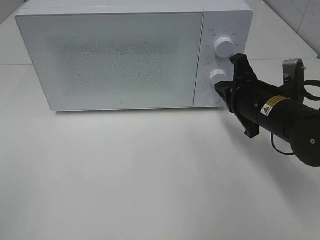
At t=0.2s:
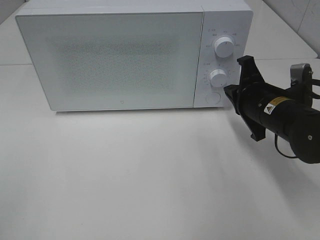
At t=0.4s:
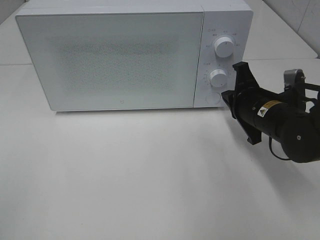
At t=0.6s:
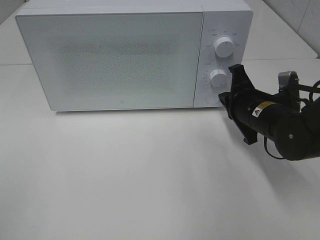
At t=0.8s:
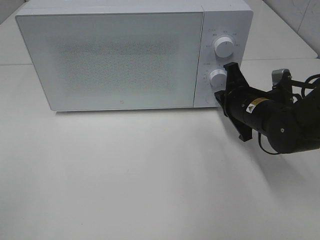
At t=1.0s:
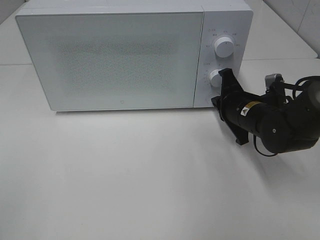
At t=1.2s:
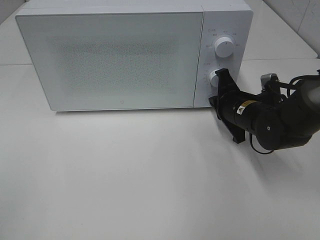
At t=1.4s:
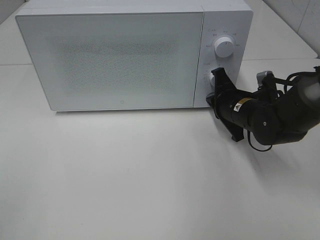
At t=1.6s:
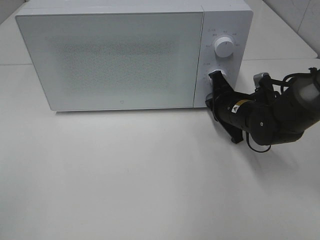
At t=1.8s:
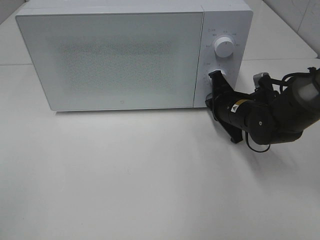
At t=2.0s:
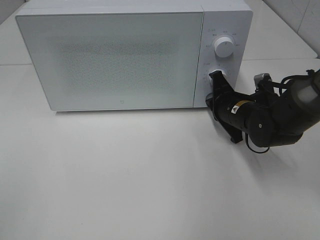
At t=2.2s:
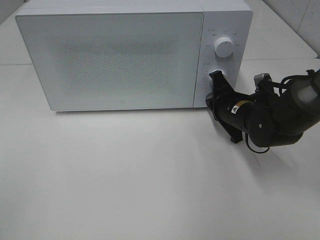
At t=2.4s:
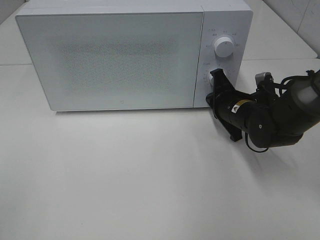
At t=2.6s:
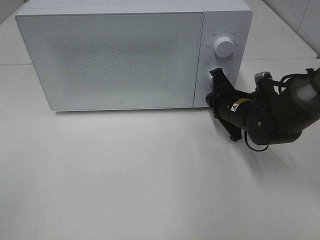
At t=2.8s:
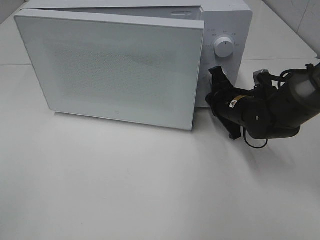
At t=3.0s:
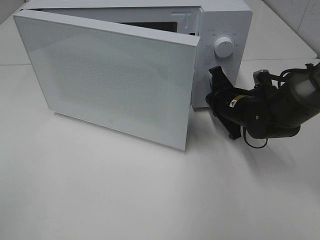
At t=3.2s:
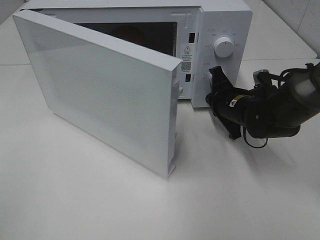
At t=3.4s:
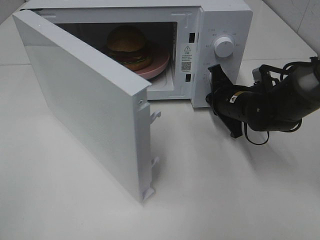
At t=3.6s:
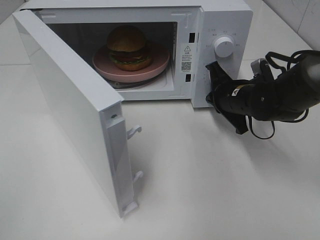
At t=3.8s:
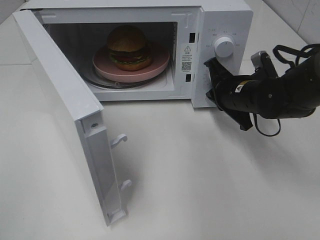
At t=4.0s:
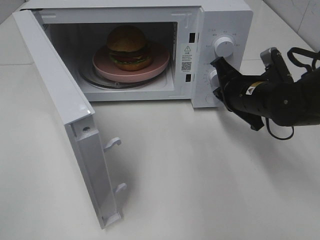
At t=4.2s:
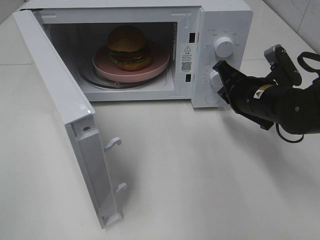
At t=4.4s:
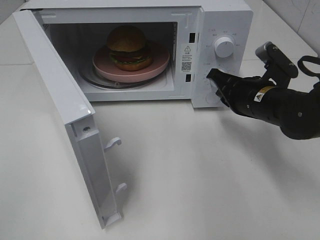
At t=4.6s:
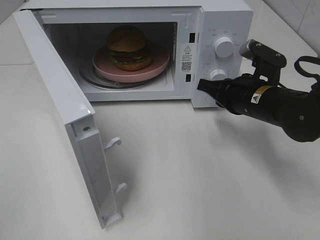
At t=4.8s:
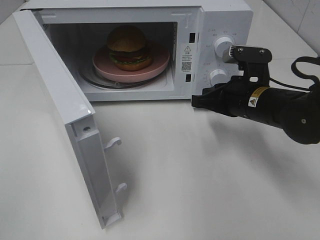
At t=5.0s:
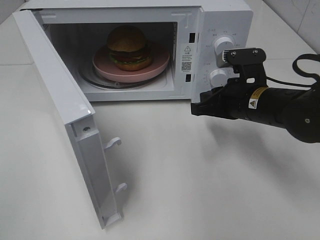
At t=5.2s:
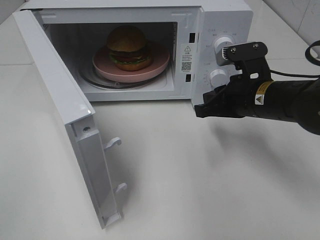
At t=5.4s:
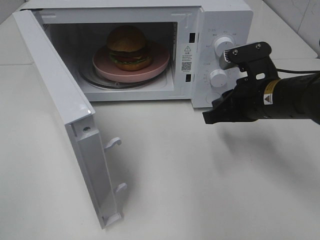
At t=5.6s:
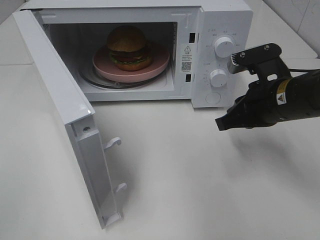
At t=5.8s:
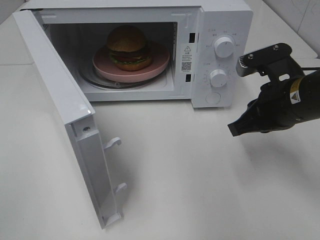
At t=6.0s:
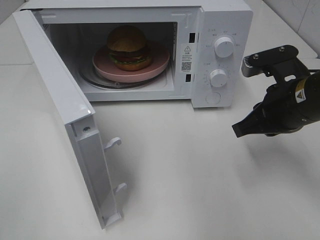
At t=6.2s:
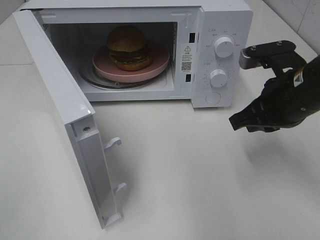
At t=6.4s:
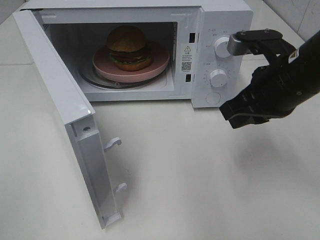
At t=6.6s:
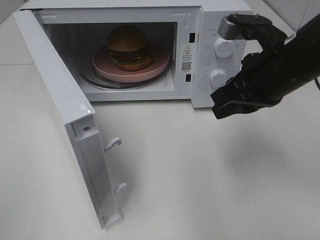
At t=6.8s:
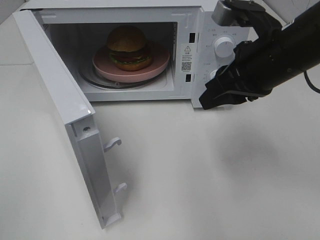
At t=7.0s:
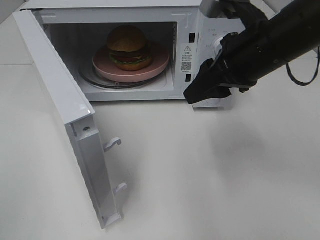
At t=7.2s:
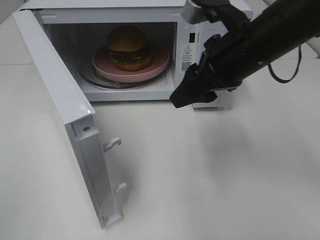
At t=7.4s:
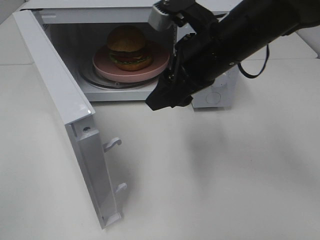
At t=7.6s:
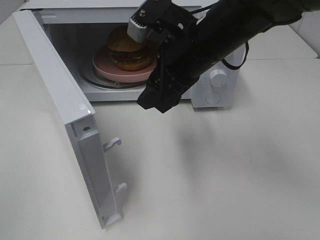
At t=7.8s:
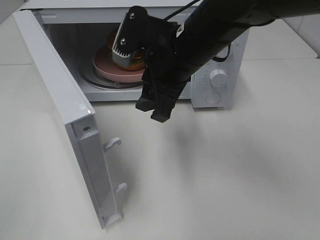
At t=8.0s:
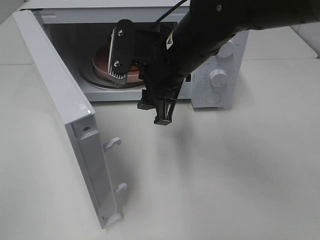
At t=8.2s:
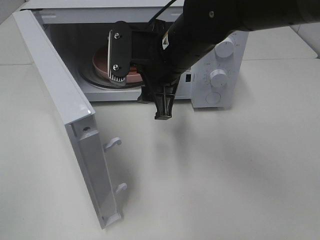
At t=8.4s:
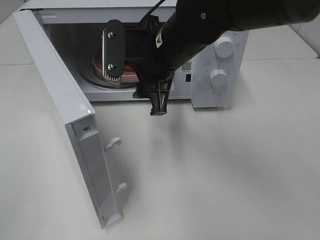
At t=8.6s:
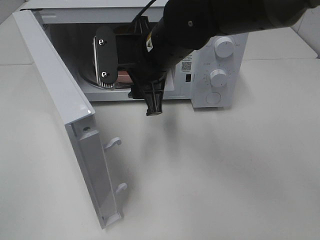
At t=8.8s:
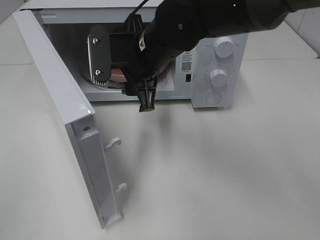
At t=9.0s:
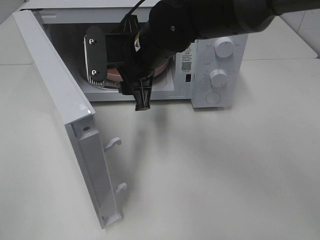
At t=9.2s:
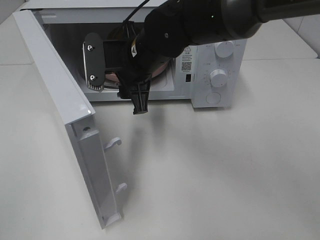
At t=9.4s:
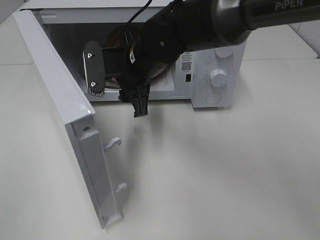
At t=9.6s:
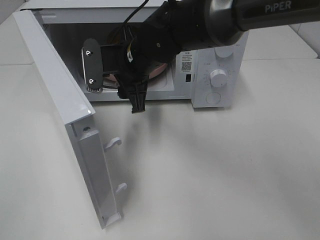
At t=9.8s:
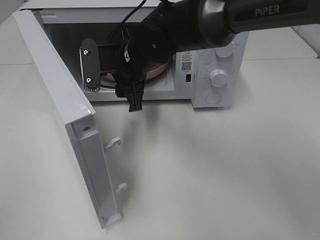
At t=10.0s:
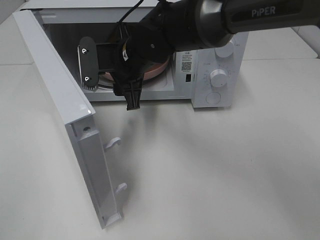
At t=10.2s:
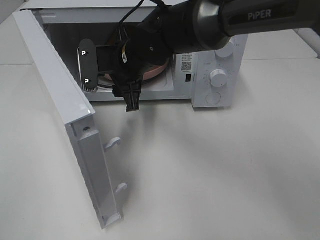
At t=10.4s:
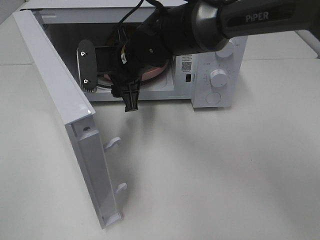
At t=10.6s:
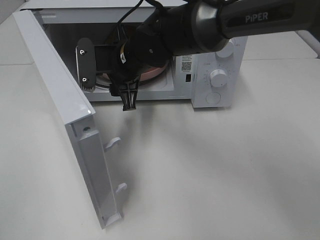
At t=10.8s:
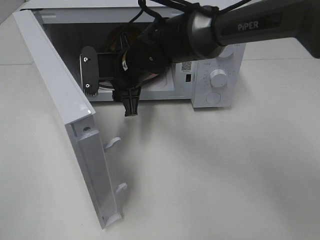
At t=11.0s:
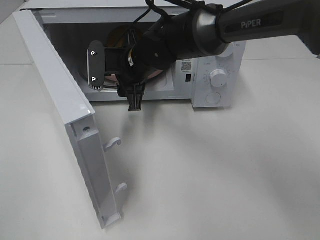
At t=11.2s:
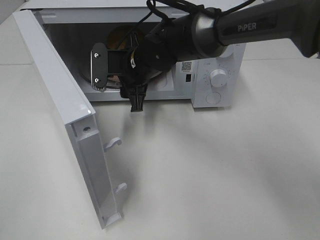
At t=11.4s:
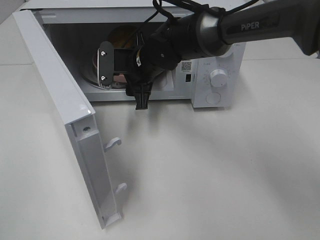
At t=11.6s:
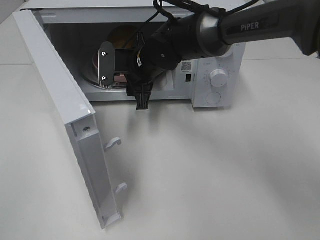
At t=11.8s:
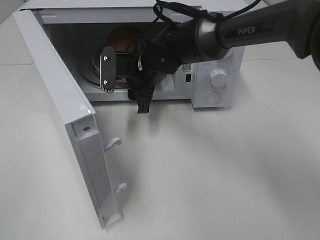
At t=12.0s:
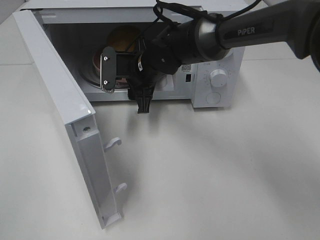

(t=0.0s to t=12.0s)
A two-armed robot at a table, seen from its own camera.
Task of the whole recording: Heat the burger.
Step, t=0.0s - t=3.8s: Right hand: press the switch.
t=0.0s - t=1.6s: The right gripper travels forward and downward by some 10 cm.
t=1.6s - t=3.0s: Neither gripper changes place.
t=3.0s - t=4.4s: The right gripper moves upward, about 5 cm.
t=4.4s - t=6.0s: The right gripper is displaced backward and upward by approximately 10 cm.
t=6.0s - t=7.6s: The right gripper goes approximately 15 cm to the left and upward, and opens its fingers.
t=7.6s - t=9.0s: The right gripper goes roughly 10 cm to the left.
t=9.0s - t=10.4s: The grippers move only a little.
t=10.4s - t=12.0s: The right gripper ends up some 5 cm from where it was.

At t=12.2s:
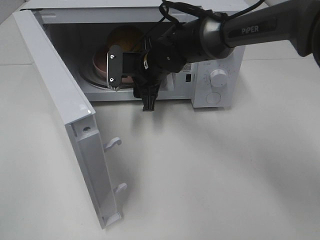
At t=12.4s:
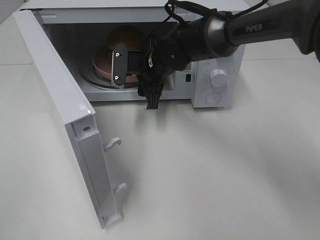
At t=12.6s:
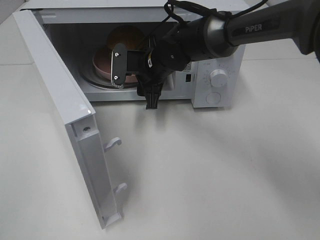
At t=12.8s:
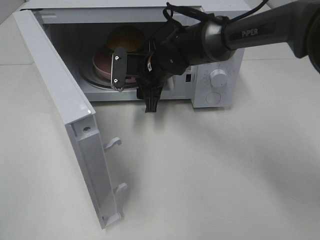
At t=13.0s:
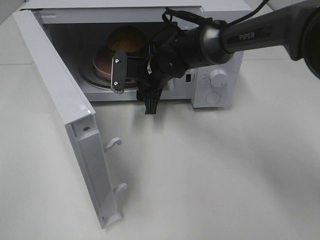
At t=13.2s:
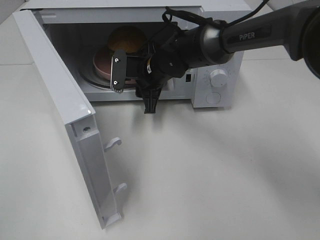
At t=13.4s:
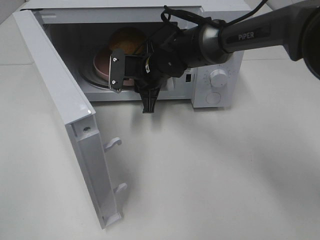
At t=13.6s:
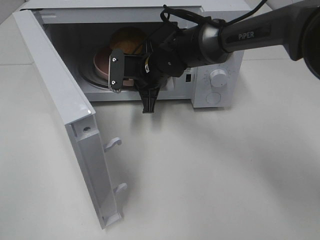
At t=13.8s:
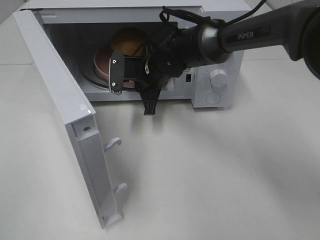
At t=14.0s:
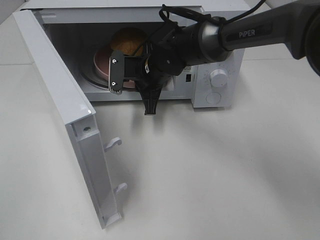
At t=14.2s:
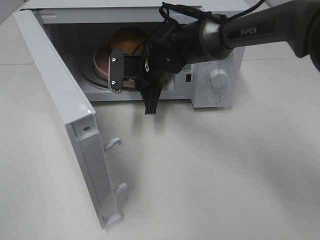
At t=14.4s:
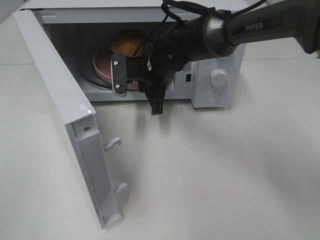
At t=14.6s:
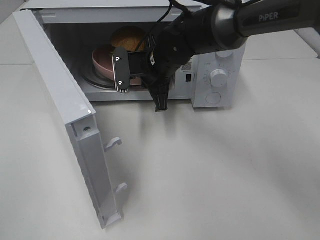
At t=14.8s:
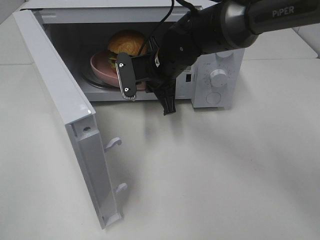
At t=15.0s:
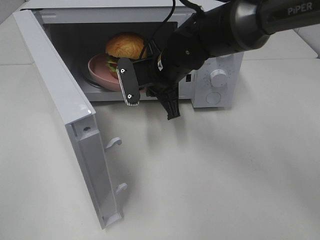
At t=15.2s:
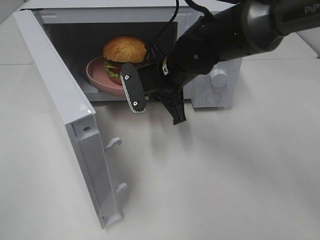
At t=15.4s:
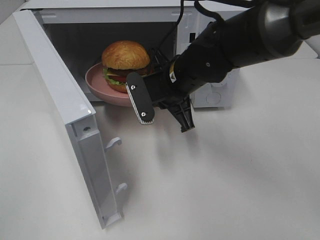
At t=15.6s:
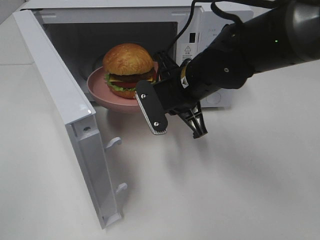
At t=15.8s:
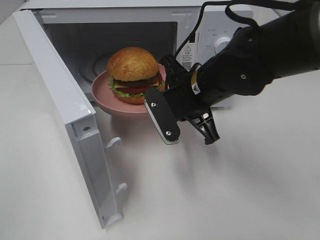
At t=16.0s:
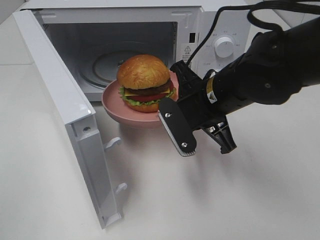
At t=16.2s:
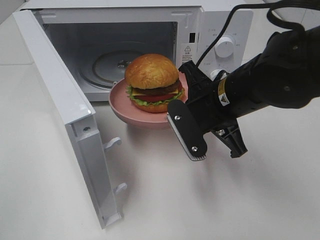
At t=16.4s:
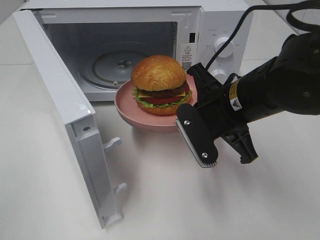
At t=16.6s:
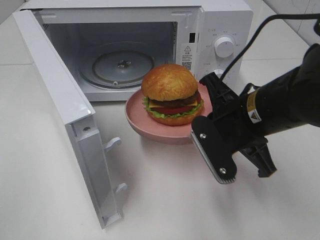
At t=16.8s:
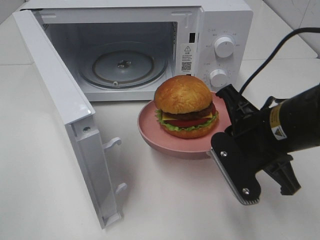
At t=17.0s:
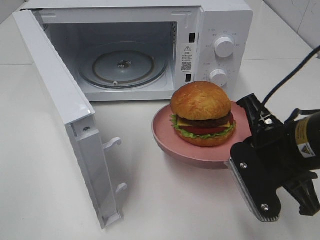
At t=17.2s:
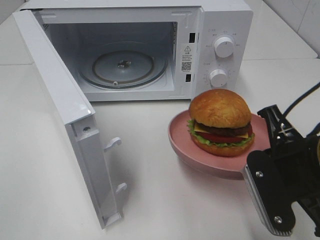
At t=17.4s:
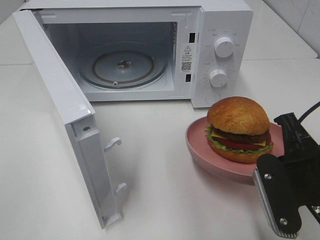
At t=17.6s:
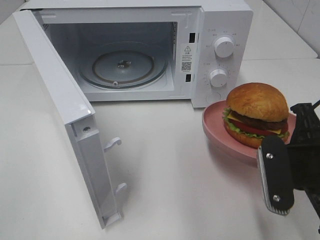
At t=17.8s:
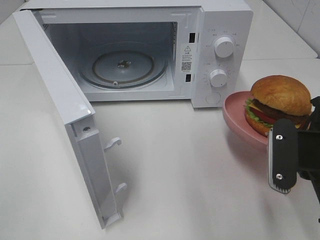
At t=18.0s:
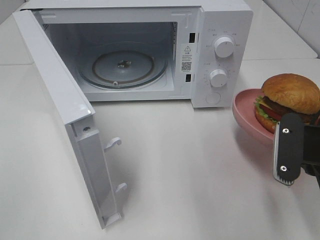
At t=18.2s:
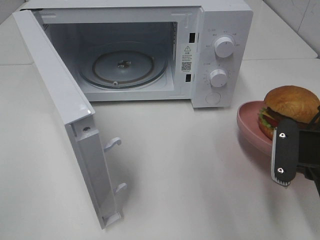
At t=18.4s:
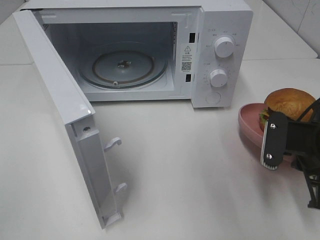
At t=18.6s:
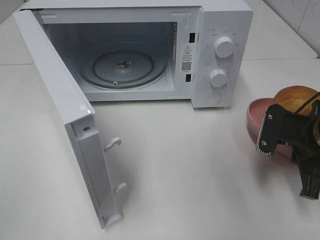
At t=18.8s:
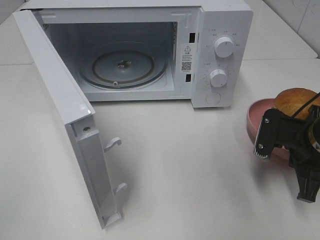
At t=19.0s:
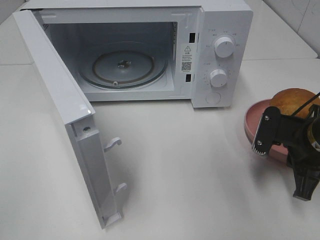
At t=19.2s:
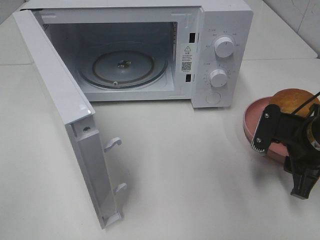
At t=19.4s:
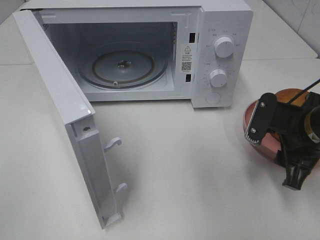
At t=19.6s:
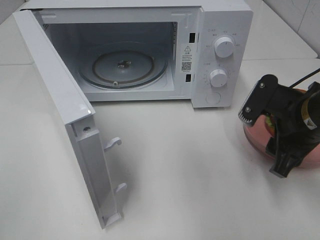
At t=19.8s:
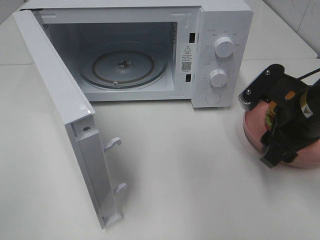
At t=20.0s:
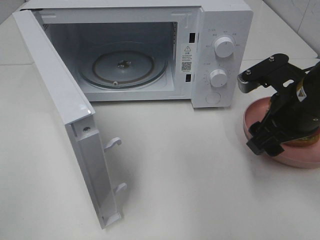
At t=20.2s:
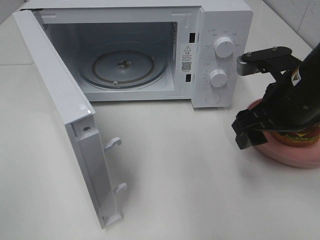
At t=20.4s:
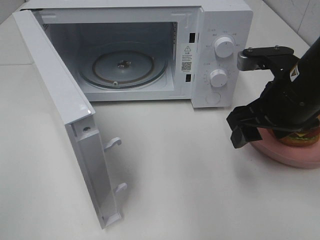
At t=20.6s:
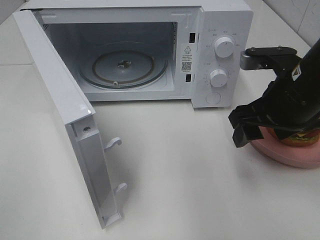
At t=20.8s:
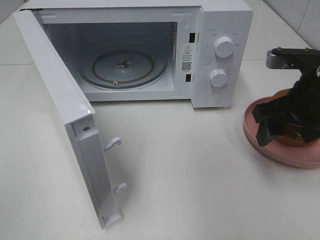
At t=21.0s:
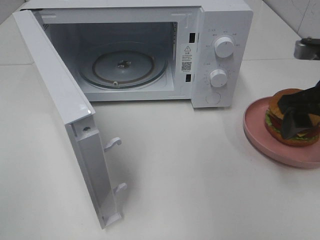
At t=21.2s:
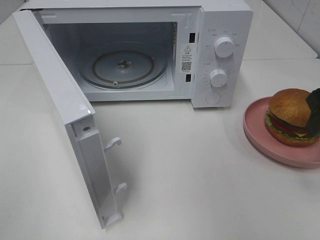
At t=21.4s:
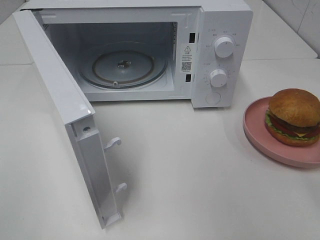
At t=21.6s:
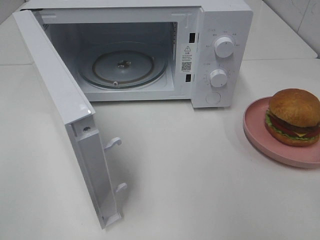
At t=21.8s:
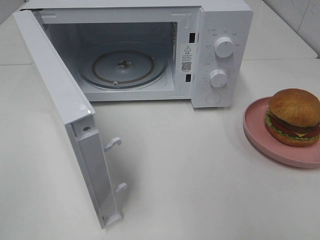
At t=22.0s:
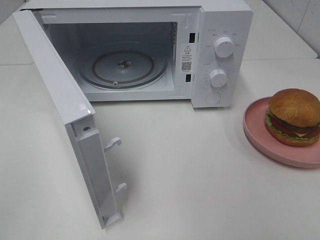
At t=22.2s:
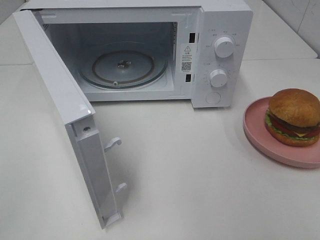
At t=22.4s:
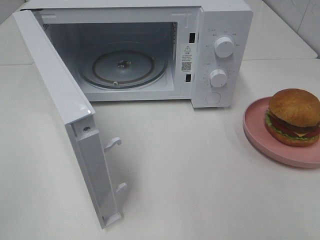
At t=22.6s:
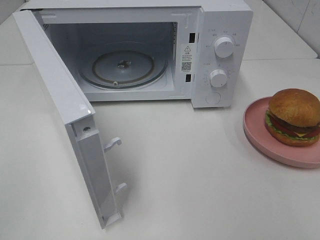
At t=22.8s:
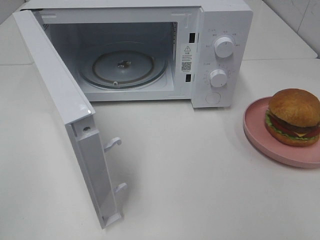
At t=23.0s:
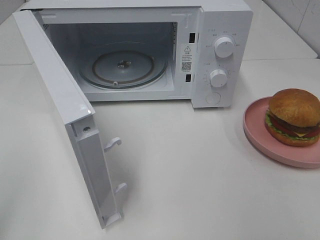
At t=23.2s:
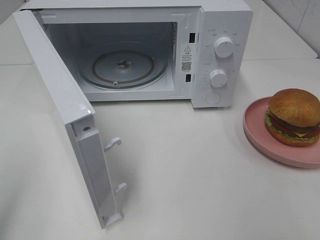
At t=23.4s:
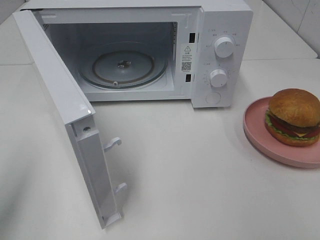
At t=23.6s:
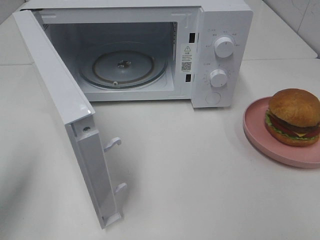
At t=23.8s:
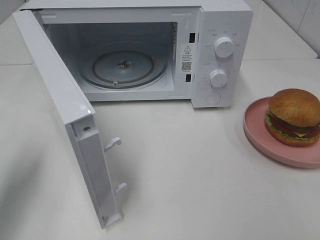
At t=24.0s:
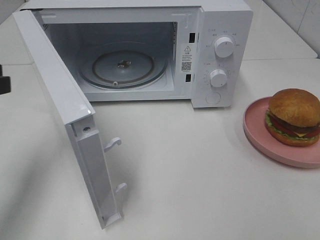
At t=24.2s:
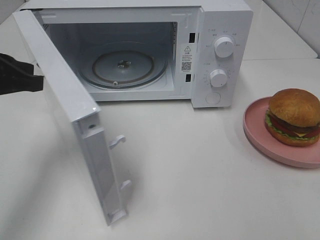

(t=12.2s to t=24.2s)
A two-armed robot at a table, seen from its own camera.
Task of the whole recording: Heat the burger.
Step, t=13.6s - t=19.0s: Right hand: place the plate on the table.
t=12.2s - t=13.8s: The right gripper closes.
t=13.8s - t=15.2s: The right gripper goes roughly 5 cm backward.
t=15.2s - t=16.6s: The right gripper heads backward and to the right, covering some 15 cm.
t=16.6s - t=18.2s: The right gripper heads to the right, covering roughly 10 cm.
t=18.2s - t=19.8s: The right gripper travels forward by approximately 5 cm, and opens up.
t=19.8s - t=21.2s: The right gripper is displaced upward and to the right by roughly 10 cm.
t=21.2s - t=22.6s: The right gripper travels backward by about 20 cm.
t=22.6s - t=24.2s: The left gripper is displaced forward by about 25 cm.
